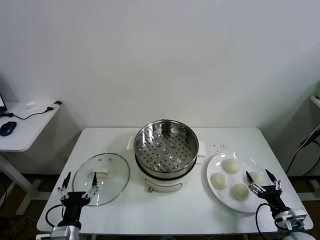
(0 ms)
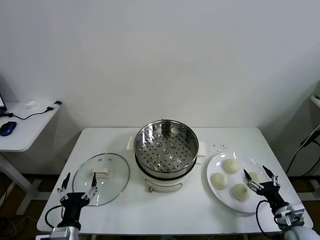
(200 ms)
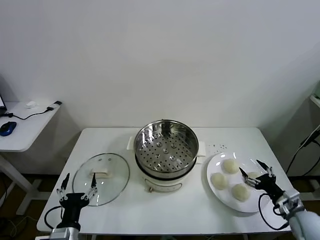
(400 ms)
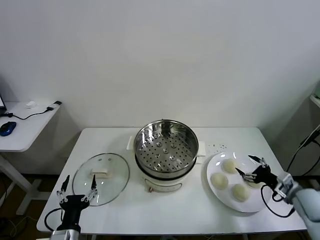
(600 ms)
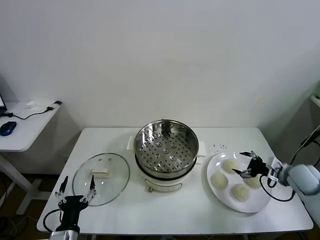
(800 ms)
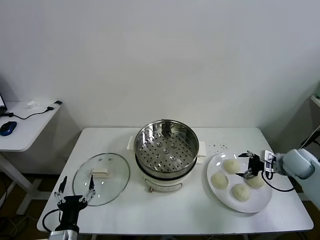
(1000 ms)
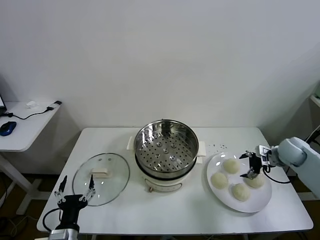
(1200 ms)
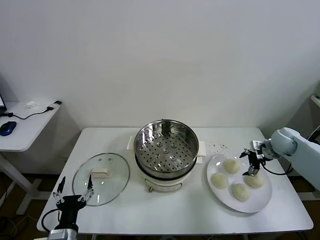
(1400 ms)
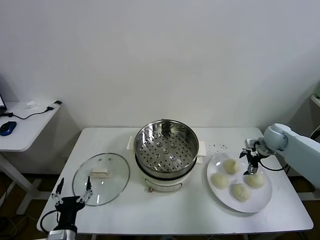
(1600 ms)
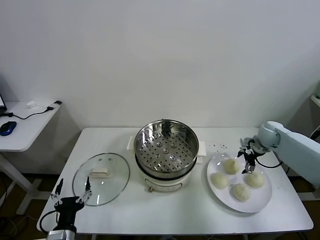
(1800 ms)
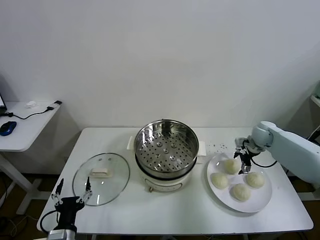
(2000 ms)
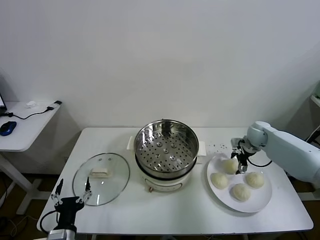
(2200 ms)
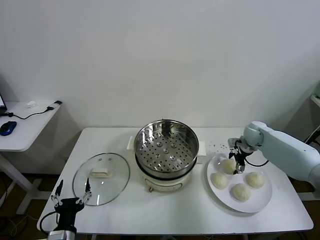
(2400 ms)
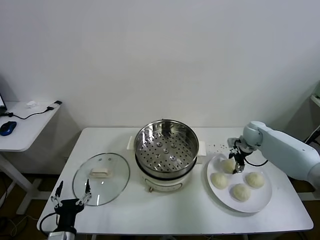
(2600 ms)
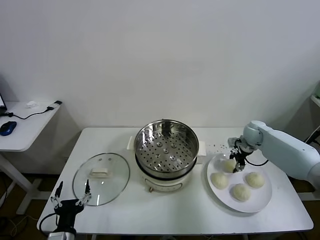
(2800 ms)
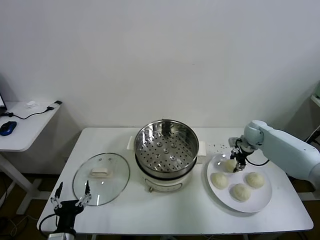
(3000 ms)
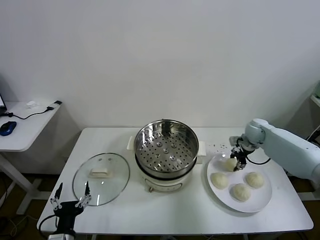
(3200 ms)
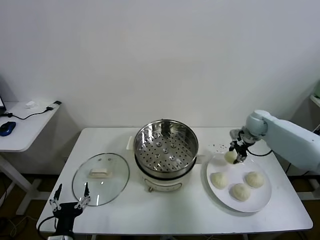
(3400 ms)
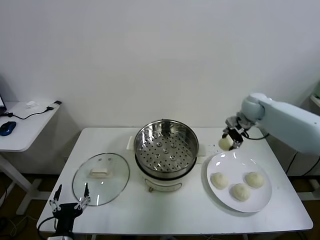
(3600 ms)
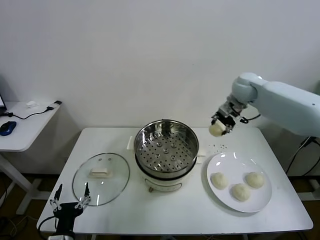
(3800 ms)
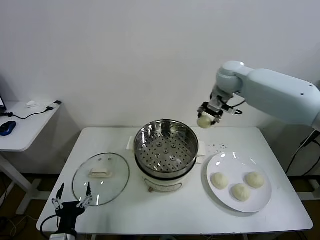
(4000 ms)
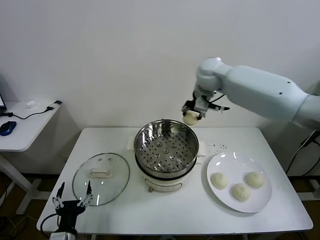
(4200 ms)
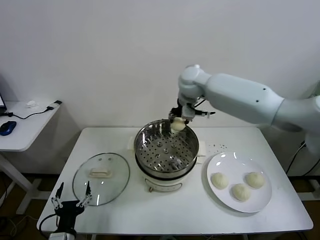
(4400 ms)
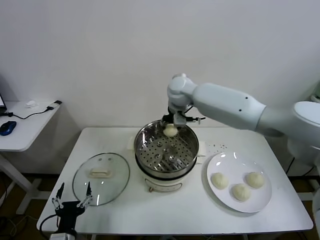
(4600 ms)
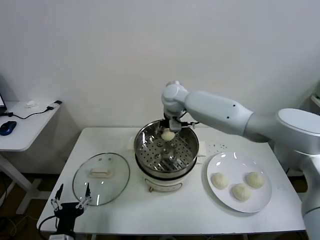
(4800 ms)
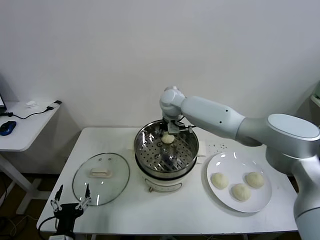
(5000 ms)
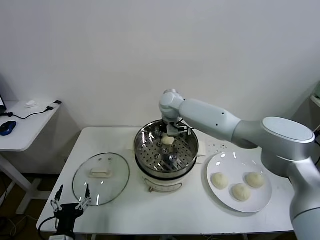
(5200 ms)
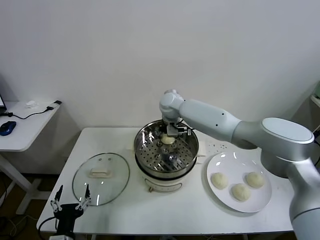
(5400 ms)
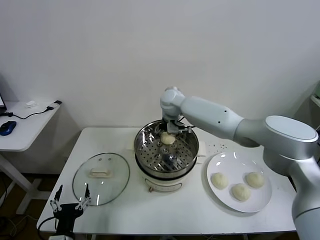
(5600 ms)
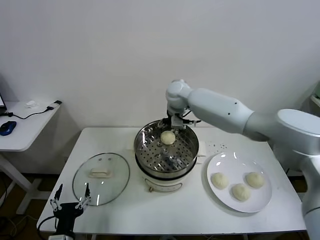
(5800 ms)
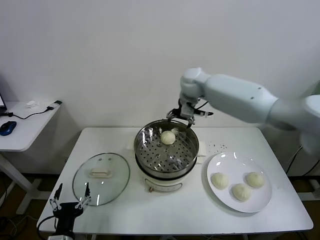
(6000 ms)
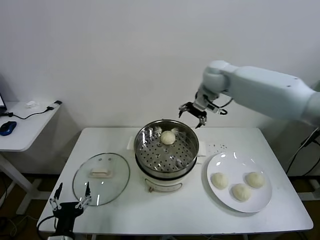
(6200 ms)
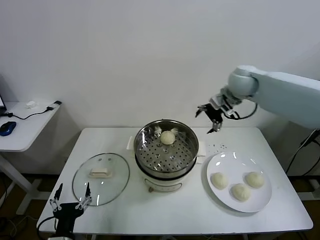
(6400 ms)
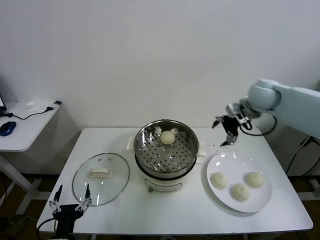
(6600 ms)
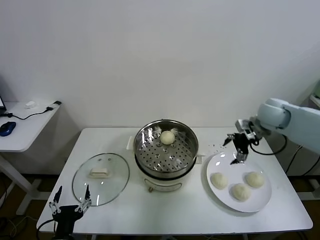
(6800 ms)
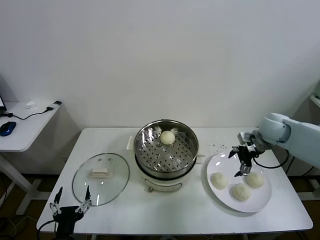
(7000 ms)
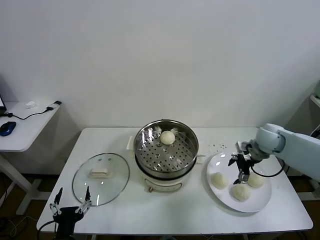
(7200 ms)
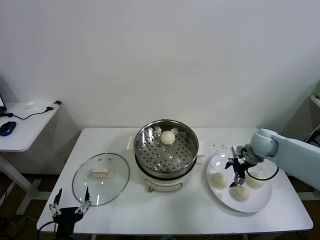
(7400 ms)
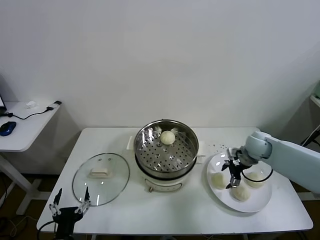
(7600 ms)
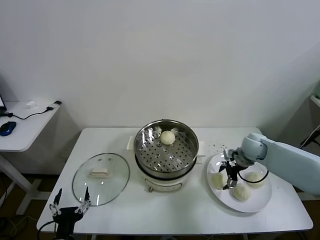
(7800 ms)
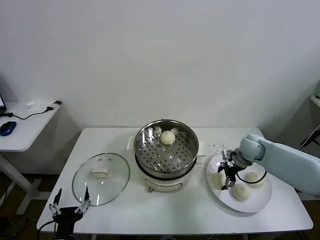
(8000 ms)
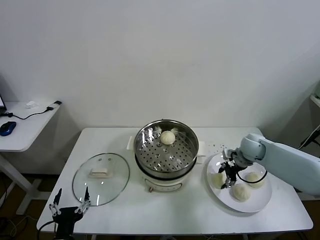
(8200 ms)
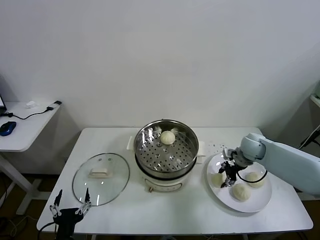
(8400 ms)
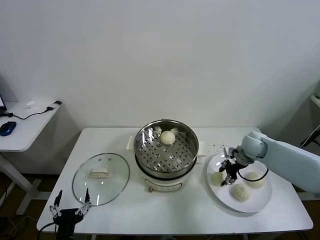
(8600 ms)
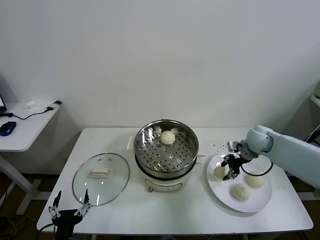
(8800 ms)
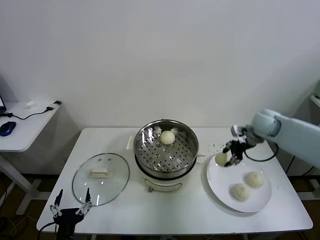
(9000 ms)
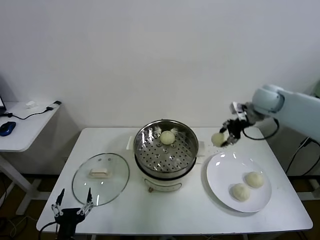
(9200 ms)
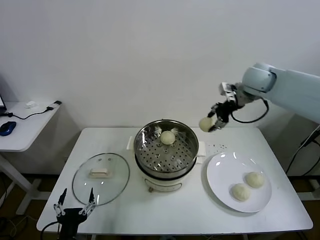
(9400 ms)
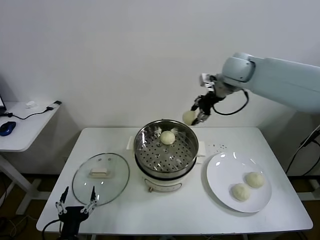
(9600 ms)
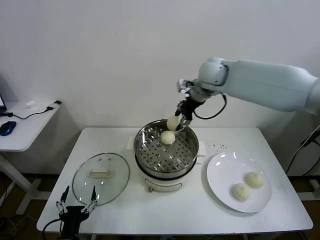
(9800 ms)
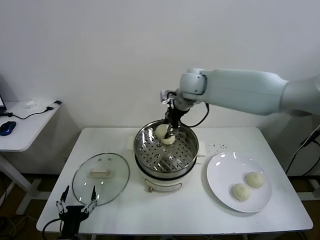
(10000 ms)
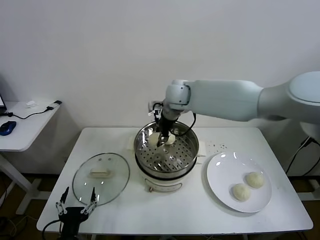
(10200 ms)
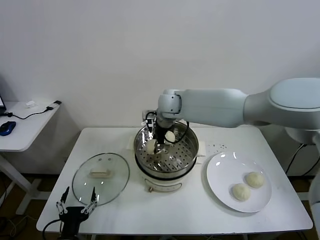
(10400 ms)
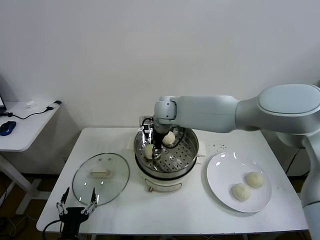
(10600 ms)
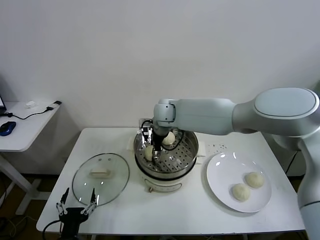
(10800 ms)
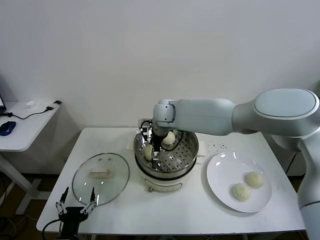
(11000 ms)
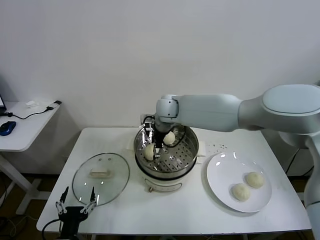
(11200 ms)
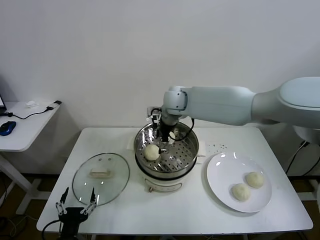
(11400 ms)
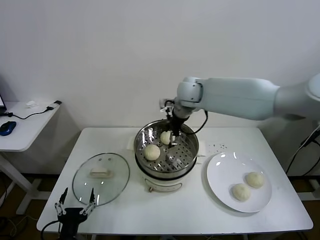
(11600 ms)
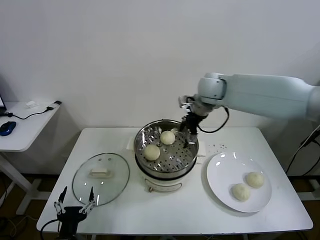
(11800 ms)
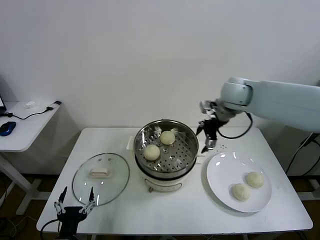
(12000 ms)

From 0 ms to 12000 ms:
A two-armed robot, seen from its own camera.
Task of the whole recording: take steamed baozi put them in steamer.
Step, from 0 ms to 2600 ms: Grasp the baozi in the plate with right gripper.
Step, from 2800 ms to 5600 ms: Place the baozi on the steamer with right gripper.
Step, from 5800 ms to 8200 ms: Grasp the baozi in the plate with right gripper.
Step, from 8600 ms to 11000 ms: Place the baozi on the steamer with right gripper.
From 1600 ms to 3000 ms: The right gripper ends up about 5 cm from where it was, and closes.
From 3000 ms to 4400 ms: The right gripper goes roughly 35 cm to the left and upward.
From 4400 ms to 6000 ms: The right gripper heads to the right, covering about 5 cm, goes downward and returns, about 10 cm each way, and opens up.
From 6000 ms to 7600 ms: The right gripper moves downward, to the right and backward, some 35 cm.
From 7600 ms to 9000 ms: The right gripper heads upward, covering approximately 15 cm, and closes.
From 9000 ms to 10400 ms: The right gripper shifts roughly 35 cm to the left.
From 10400 ms to 12000 ms: The right gripper travels to the right by approximately 25 cm, and opens its fingers.

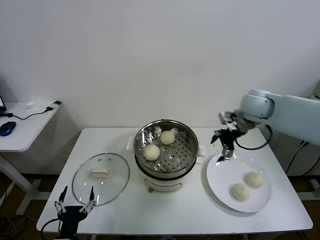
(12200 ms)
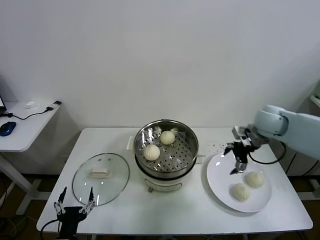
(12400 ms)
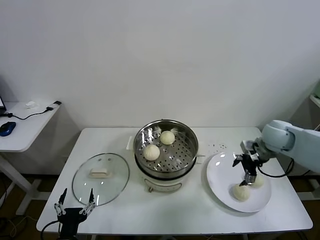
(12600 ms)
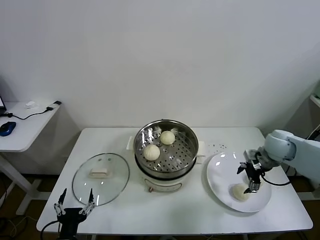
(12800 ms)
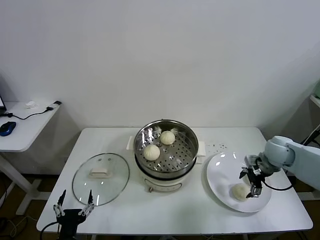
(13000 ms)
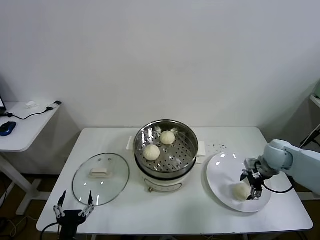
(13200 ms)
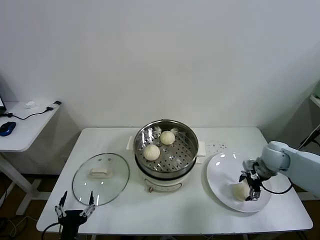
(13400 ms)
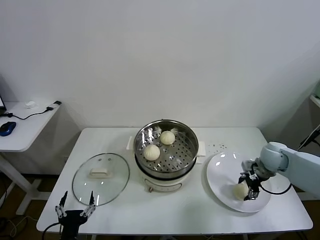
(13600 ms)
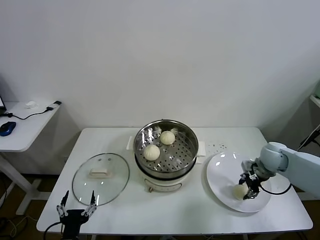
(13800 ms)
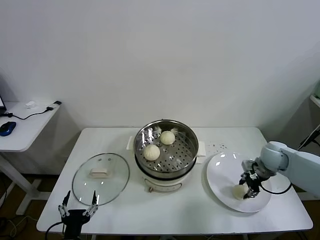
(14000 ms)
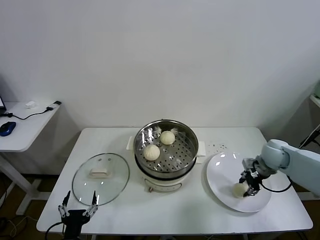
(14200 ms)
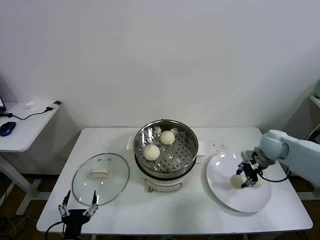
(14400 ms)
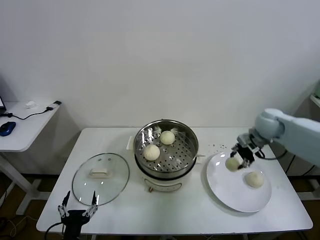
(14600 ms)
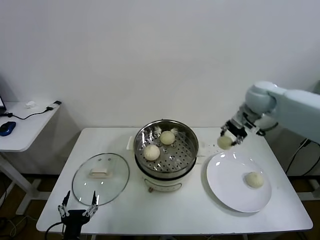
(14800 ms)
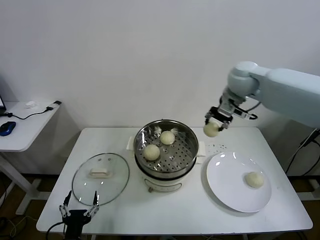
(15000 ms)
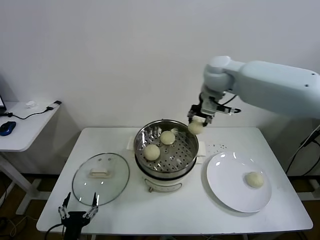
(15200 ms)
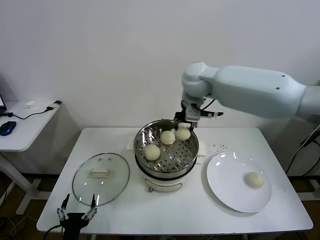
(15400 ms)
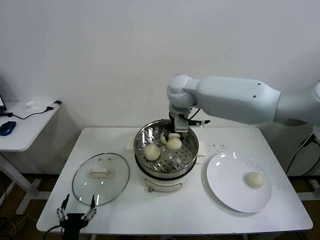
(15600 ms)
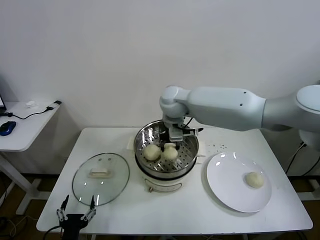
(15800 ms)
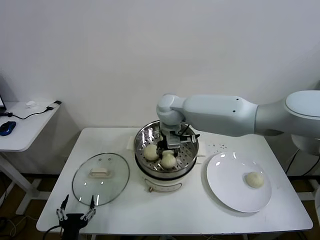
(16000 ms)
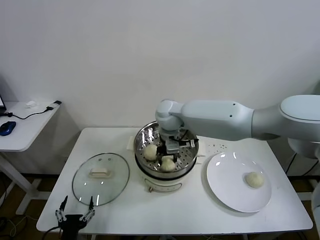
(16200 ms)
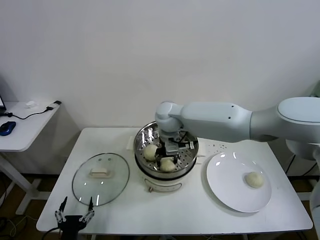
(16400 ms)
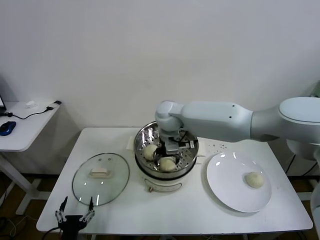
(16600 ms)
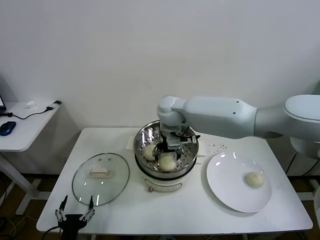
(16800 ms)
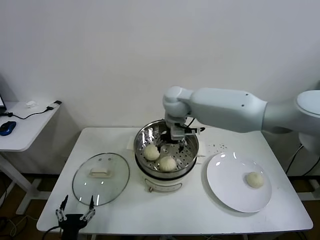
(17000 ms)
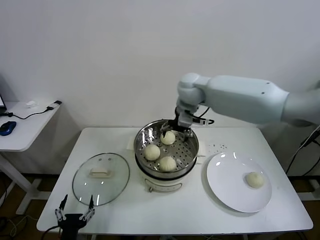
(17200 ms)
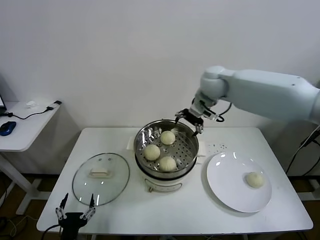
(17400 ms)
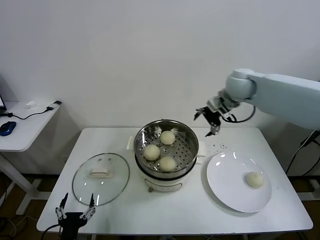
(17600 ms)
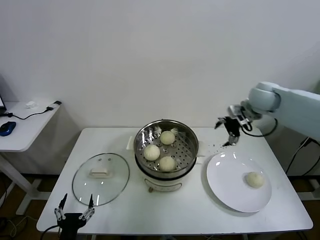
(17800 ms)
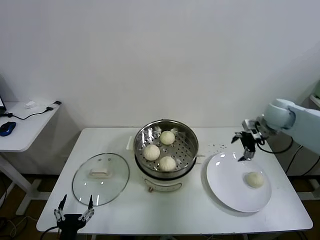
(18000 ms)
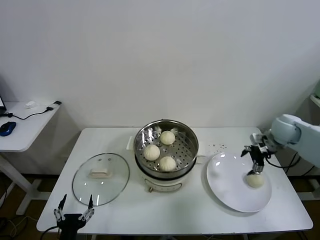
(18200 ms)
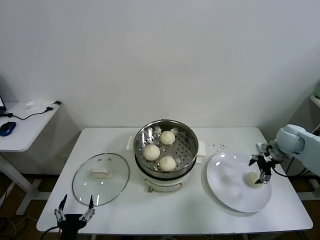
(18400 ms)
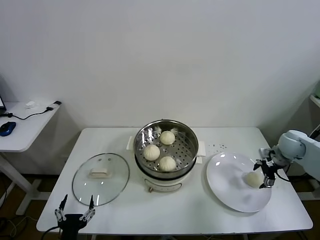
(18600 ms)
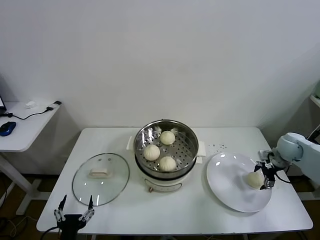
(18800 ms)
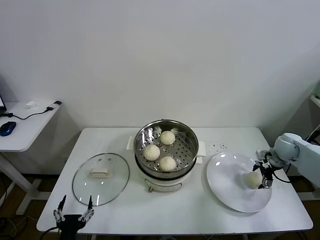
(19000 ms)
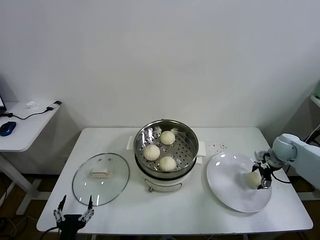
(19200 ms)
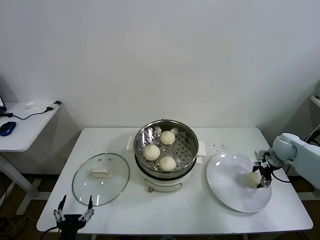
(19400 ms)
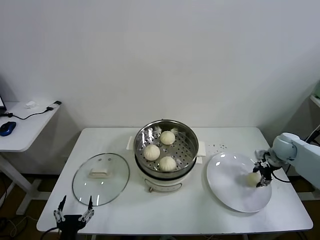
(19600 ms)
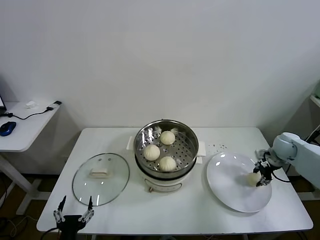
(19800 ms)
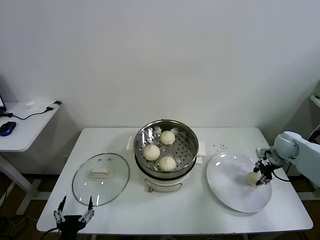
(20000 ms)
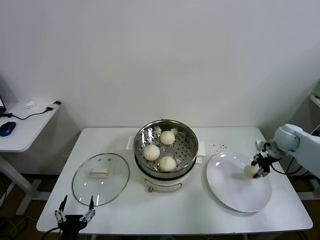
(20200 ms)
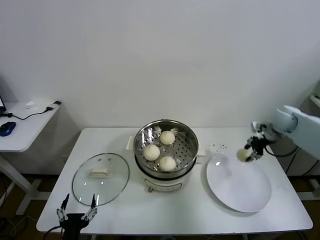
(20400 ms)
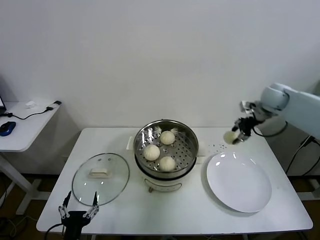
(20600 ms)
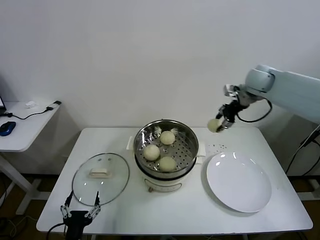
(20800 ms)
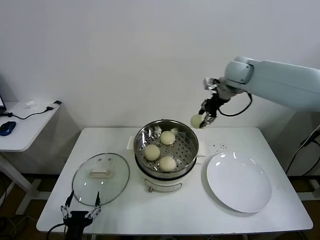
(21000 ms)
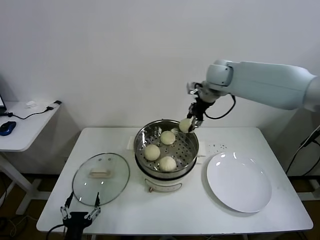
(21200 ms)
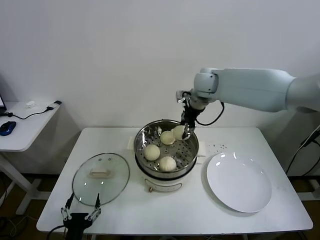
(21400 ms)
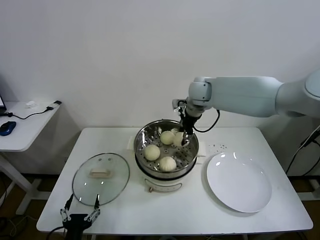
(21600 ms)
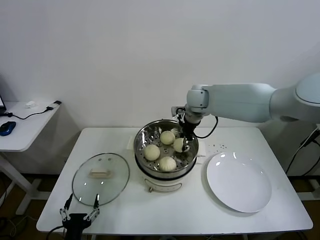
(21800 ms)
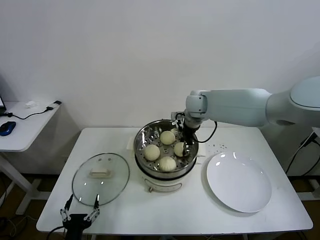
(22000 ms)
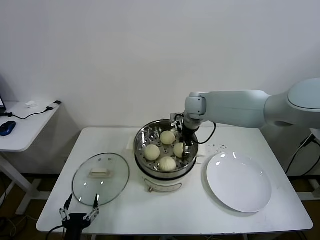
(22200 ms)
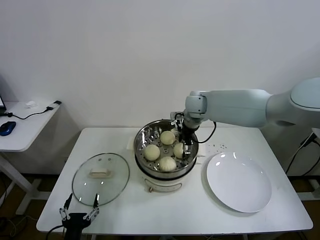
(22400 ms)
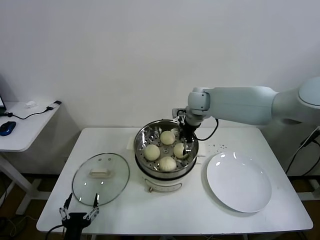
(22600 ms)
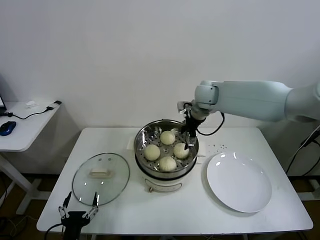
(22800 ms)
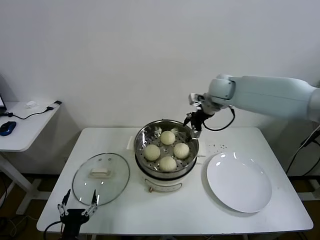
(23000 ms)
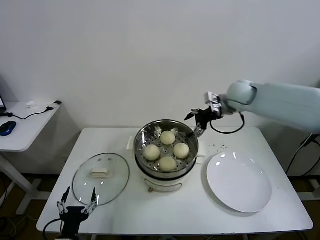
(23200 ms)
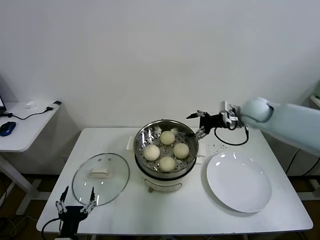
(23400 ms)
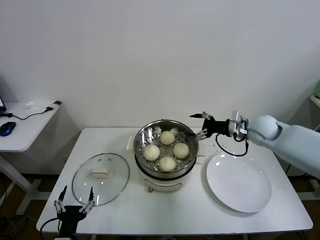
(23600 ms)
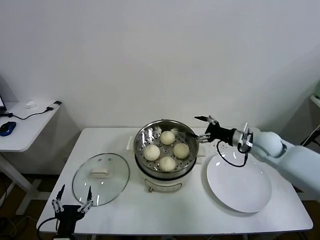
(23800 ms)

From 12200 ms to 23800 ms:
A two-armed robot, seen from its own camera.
Task of the whole recording: take steamed baozi put them in steamer.
Step, from 12200 ms to 13800 ms: Grasp the baozi in the plate with right gripper.
Step, from 14000 ms to 16600 ms: Place the baozi on the steamer with right gripper.
Step, from 16800 ms to 19600 ms: Grasp the baozi in the plate with right gripper.
Step, from 19800 ms to 22600 ms: Place the baozi on the steamer with right gripper.
From 12200 ms to 13600 ms: The right gripper heads downward and to the right, covering about 20 cm, and closes its fingers.
From 13600 ms to 15000 ms: The right gripper travels upward and to the left by about 30 cm, and closes its fingers.
From 15000 ms to 16600 ms: The right gripper shifts about 25 cm to the left and downward, and opens up.
From 16600 ms to 18000 ms: The right gripper goes roughly 40 cm to the right.
From 18000 ms to 19400 ms: The right gripper heads downward and to the right, covering some 15 cm, and closes.
From 19400 ms to 21000 ms: The right gripper moves upward, to the left and forward, approximately 35 cm, and closes up.
From 21000 ms to 22400 ms: The right gripper shifts approximately 15 cm downward and to the left, and opens up.
From 22400 ms to 23800 ms: The right gripper travels to the right, backward and downward by about 25 cm.
